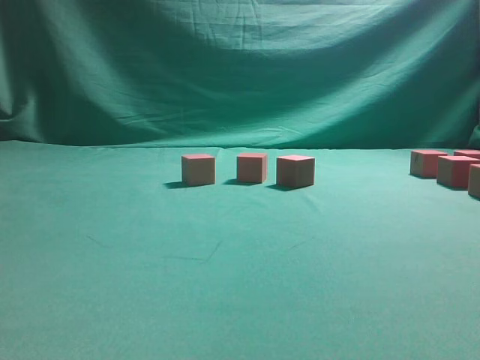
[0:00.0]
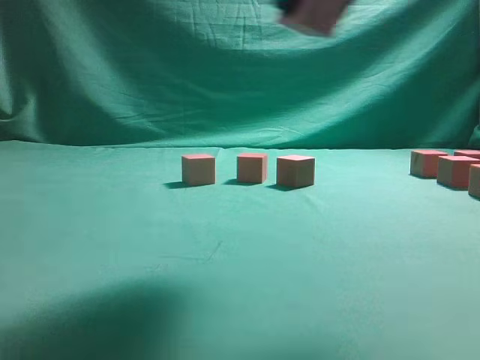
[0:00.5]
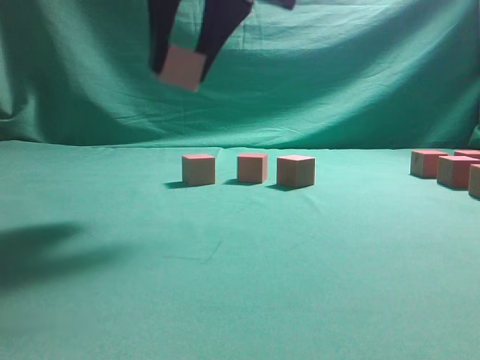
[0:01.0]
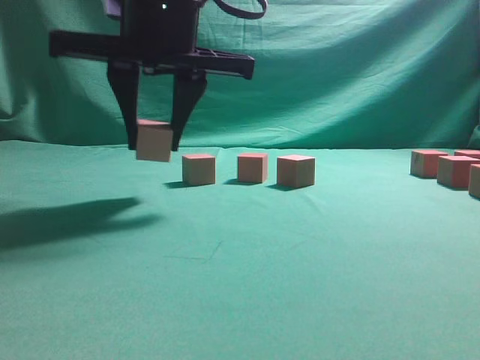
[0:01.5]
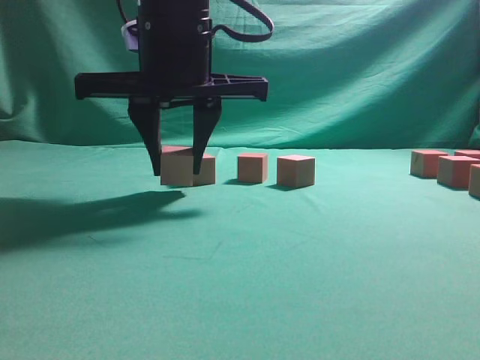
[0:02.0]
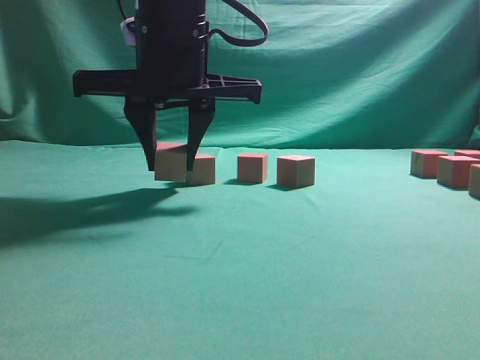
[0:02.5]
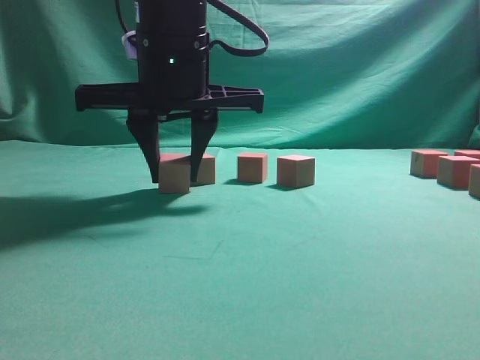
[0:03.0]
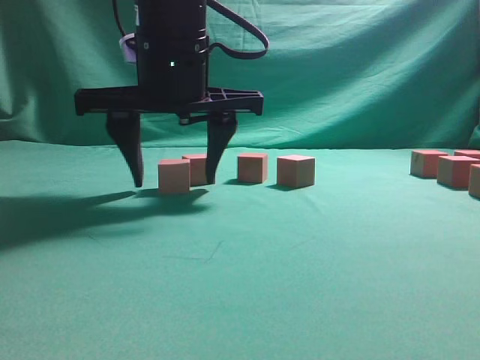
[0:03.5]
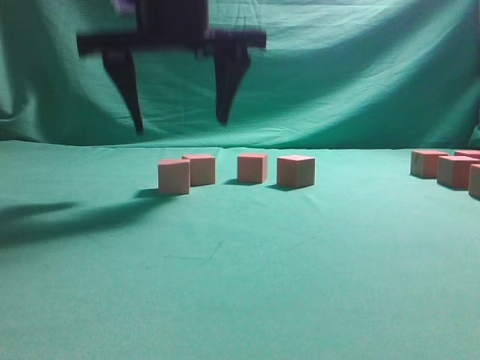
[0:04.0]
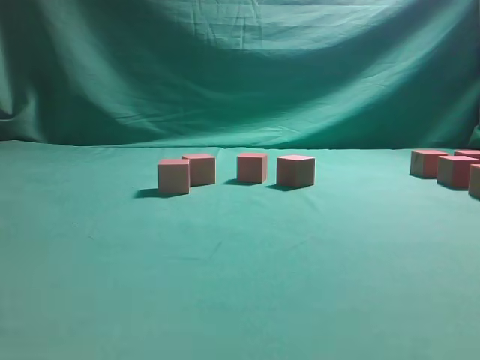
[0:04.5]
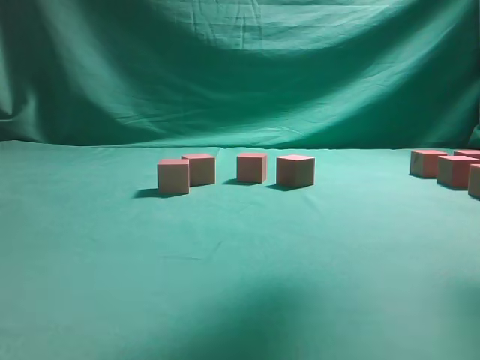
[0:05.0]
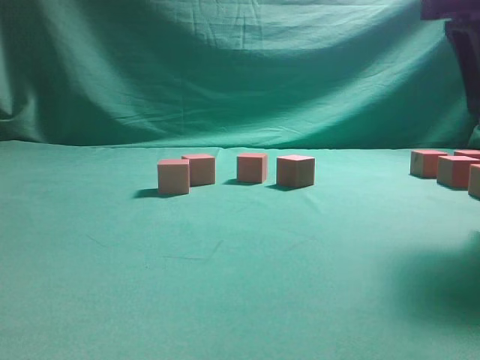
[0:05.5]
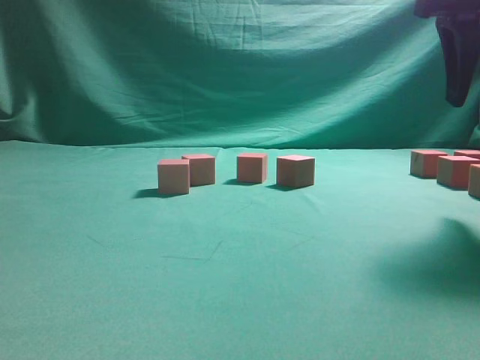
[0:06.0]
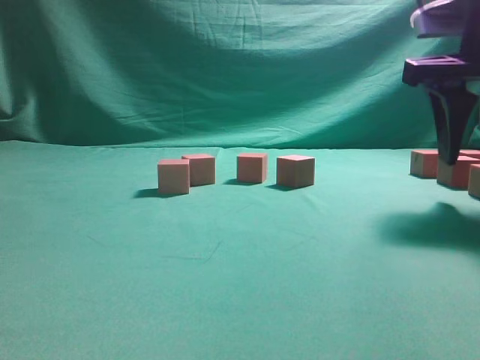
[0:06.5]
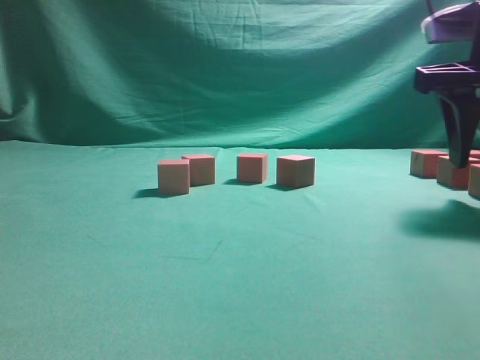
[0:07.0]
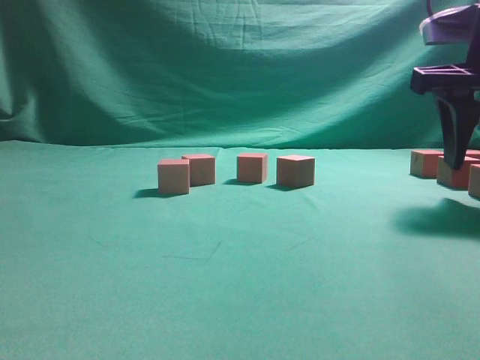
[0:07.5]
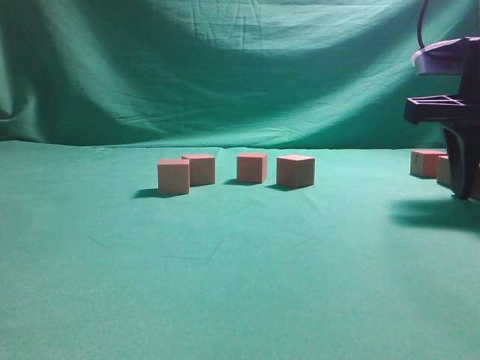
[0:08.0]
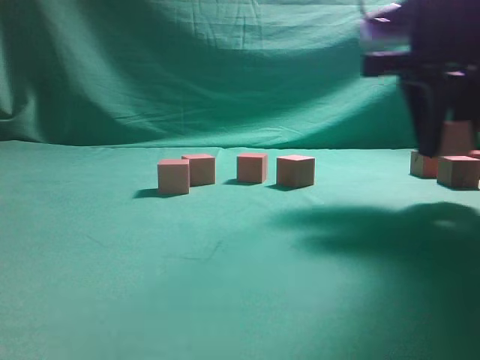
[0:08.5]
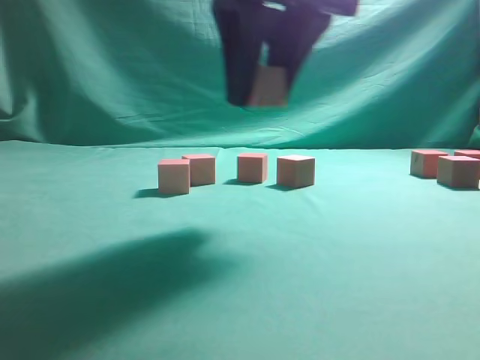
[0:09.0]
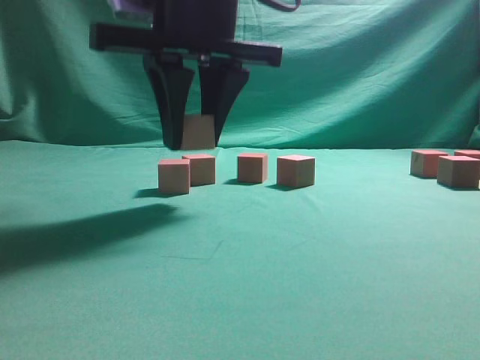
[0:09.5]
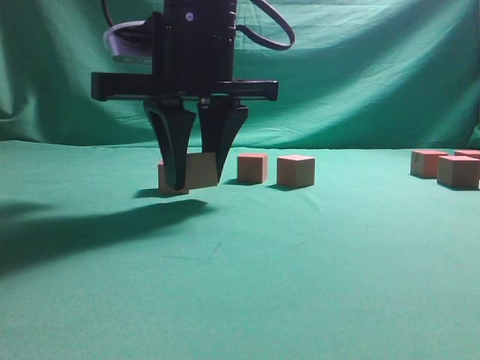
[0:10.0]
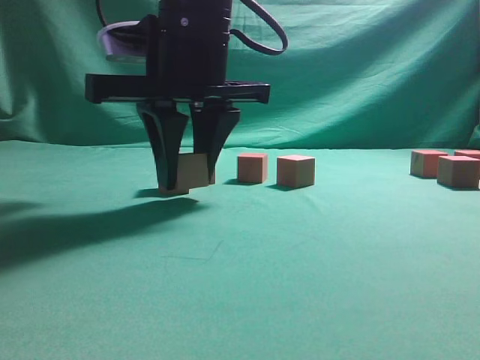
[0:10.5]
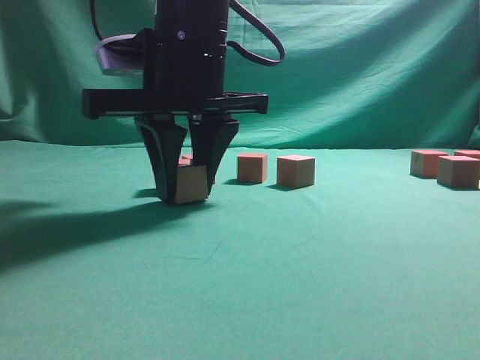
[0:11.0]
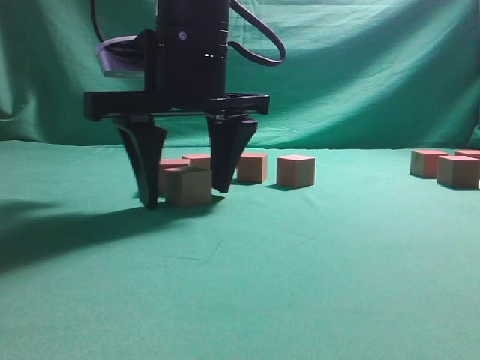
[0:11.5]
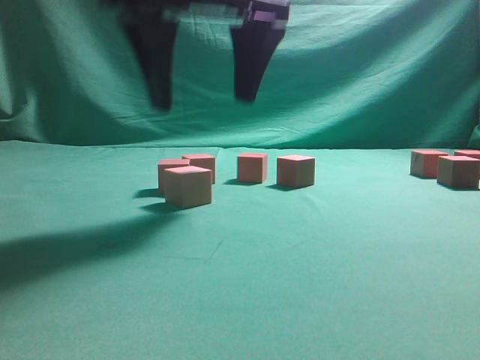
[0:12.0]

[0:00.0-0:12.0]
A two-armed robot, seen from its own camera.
Task of the whole recording: pick up the multiple cubes in two columns one by one and place them in another position on the table.
Step, 0:00.0 to 0:04.0: Place the block at the correct position to assemble the letter S.
Step, 0:04.5 to 0:08.0: Pick up the block on the table.
Step, 0:08.5 to 0:12.0: Place the block at the correct position to assemble the letter S.
0:00.0 to 0:02.0: The right gripper travels to the left by approximately 35 cm.
0:02.0 to 0:04.0: The right gripper opens.
0:04.0 to 0:06.0: The right gripper shifts about 25 cm to the right.
0:06.0 to 0:08.0: The right gripper moves downward, roughly 10 cm.
0:08.0 to 0:10.0: The right gripper shifts about 25 cm to the left.
0:10.0 to 0:12.0: The right gripper travels upward by roughly 5 cm, and opens.

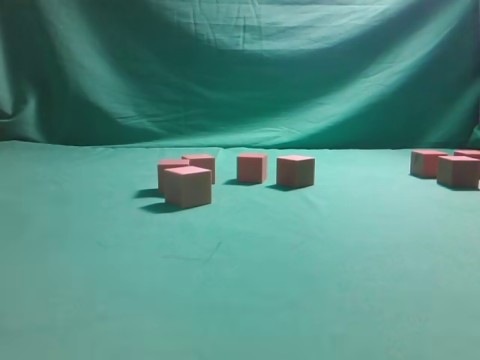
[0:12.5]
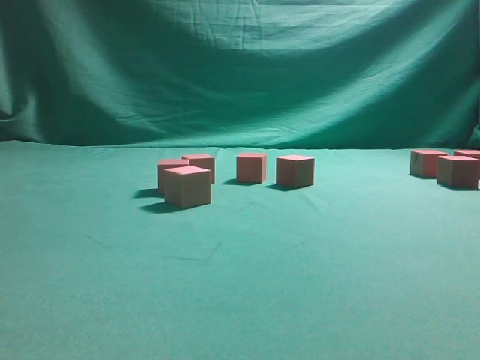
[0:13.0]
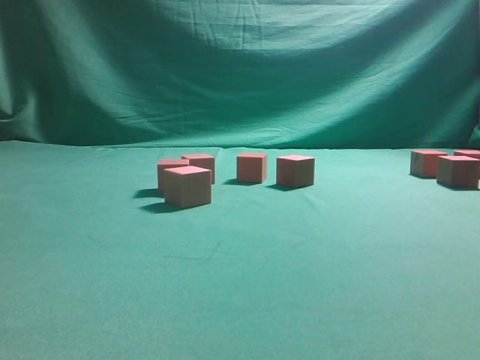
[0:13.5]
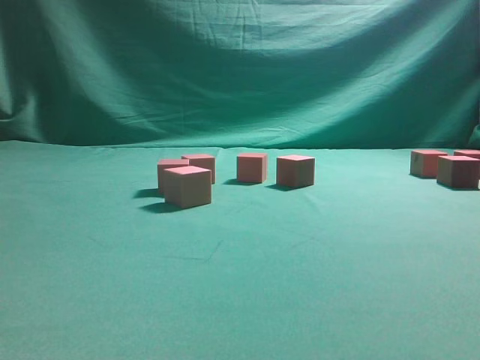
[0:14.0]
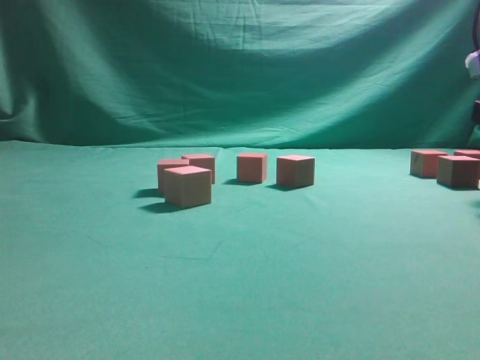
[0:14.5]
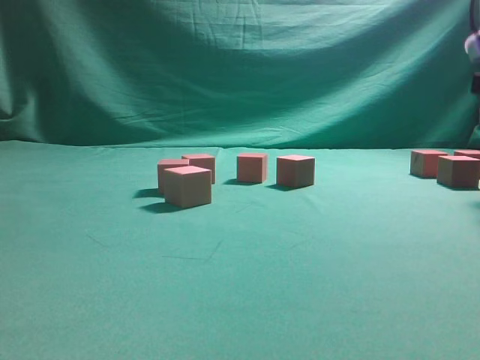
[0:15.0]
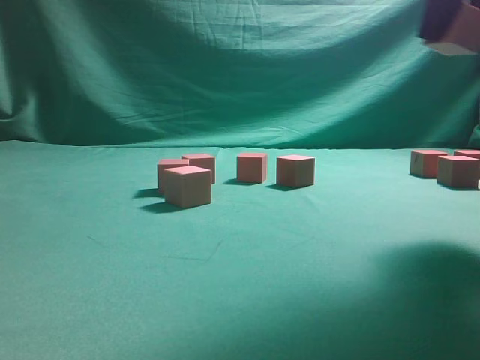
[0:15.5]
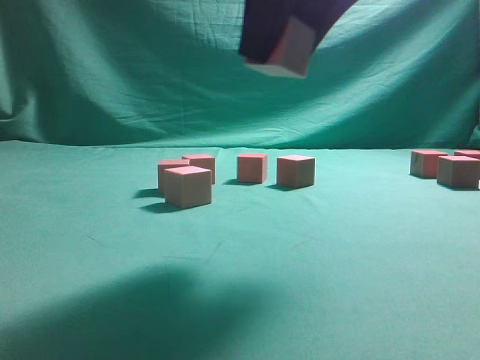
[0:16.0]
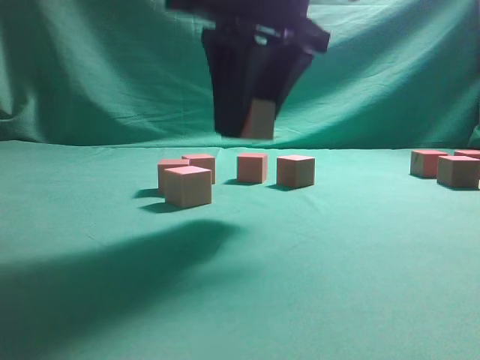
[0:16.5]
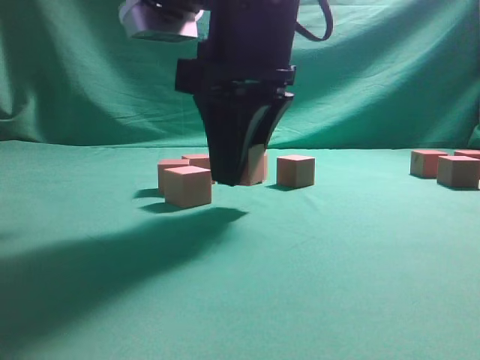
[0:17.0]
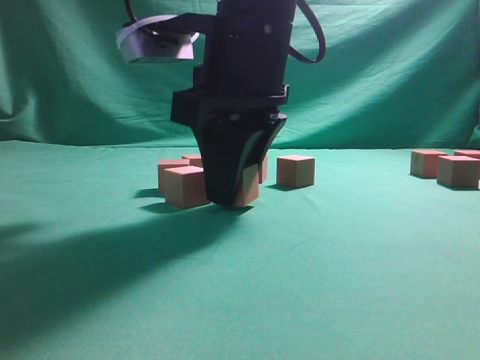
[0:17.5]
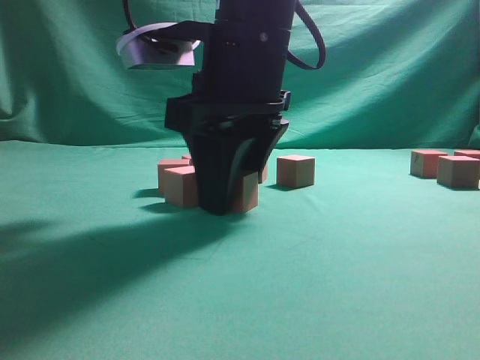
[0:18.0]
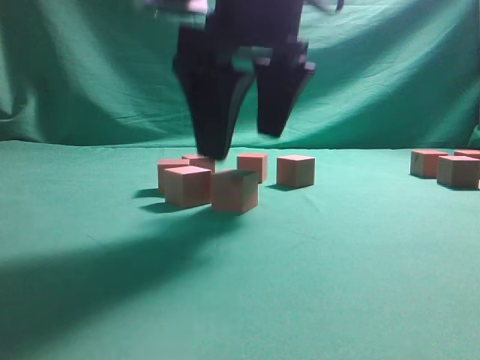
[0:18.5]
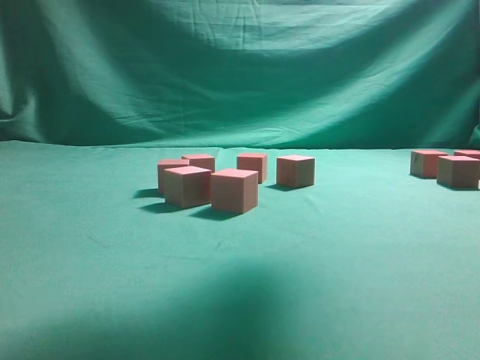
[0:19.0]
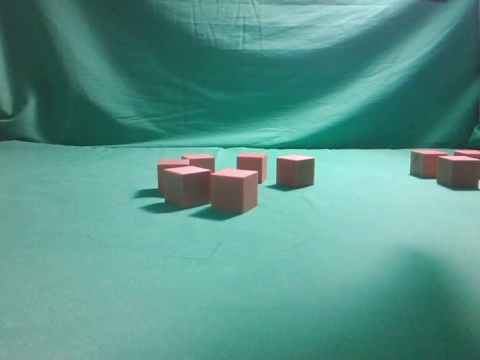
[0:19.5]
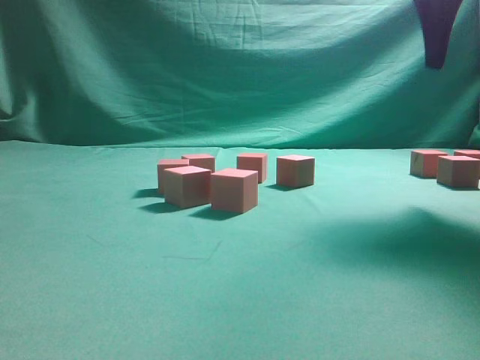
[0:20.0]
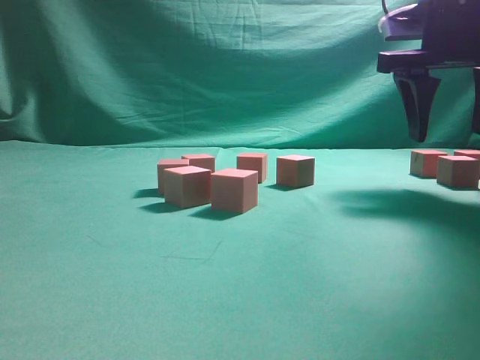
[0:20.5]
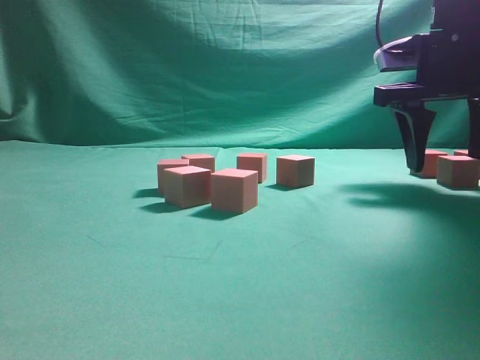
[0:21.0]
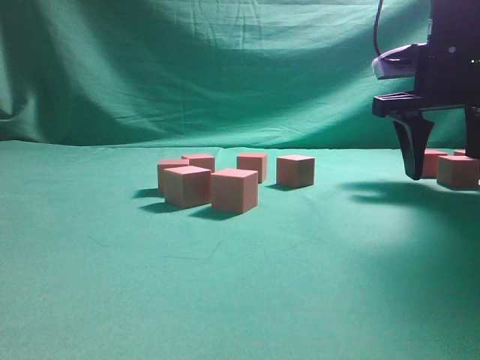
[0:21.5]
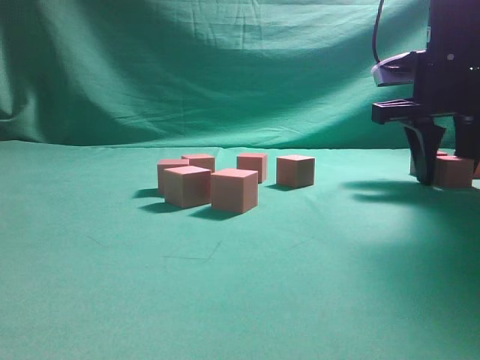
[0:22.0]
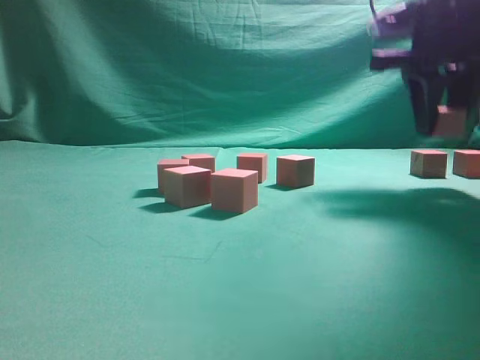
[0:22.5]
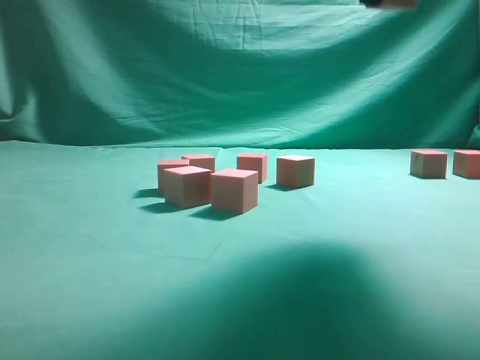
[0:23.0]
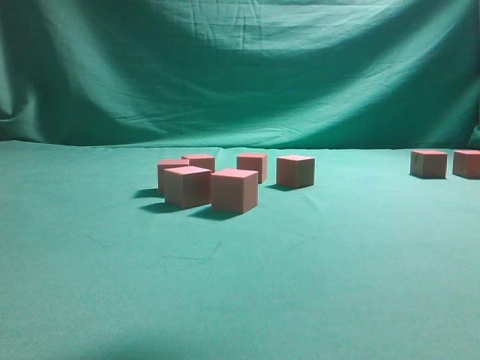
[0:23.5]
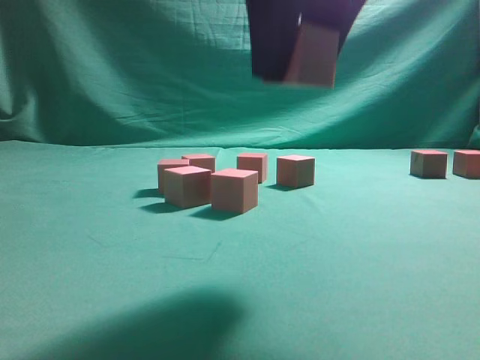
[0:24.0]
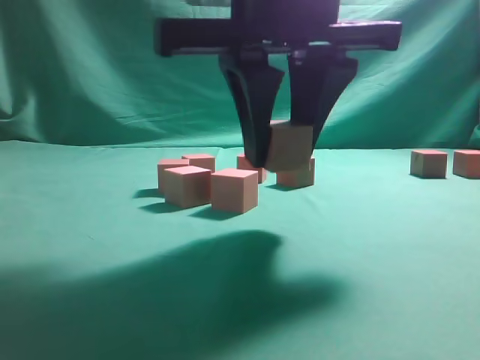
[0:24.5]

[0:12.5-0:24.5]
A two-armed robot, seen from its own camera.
Task of the whole recording: pick up the multiple cubes in two columns one by one and place them in another position on the table.
Step, 0:15.5 to 0:18.5: Place the block at the correct position to assemble the letter S.
Step, 0:19.0 to 0:22.0: Pick up the block on the table.
0:14.5 to 0:16.5: The right gripper travels to the left by roughly 25 cm.
0:16.5 to 0:18.5: The right gripper opens up.
0:18.5 to 0:20.5: The right gripper moves to the right and forward, some 20 cm.
0:20.5 to 0:22.5: The right gripper closes.
0:22.5 to 0:24.5: The right gripper heads to the left and backward, covering approximately 25 cm.

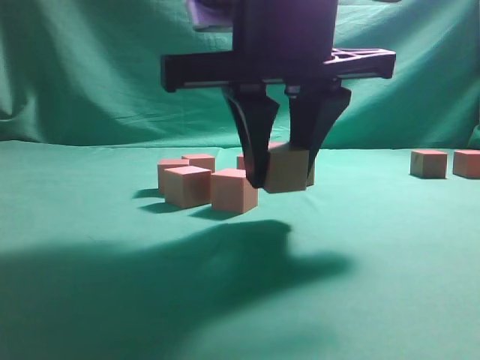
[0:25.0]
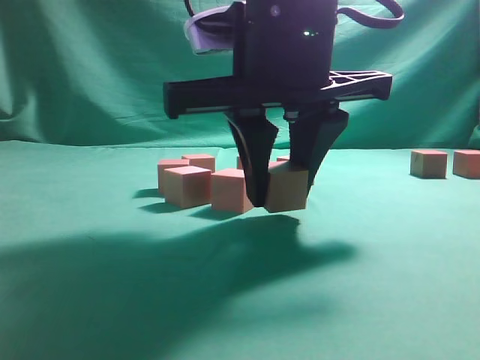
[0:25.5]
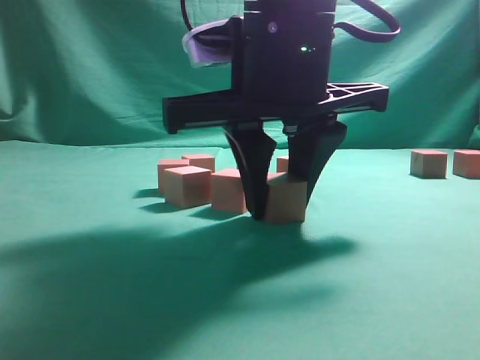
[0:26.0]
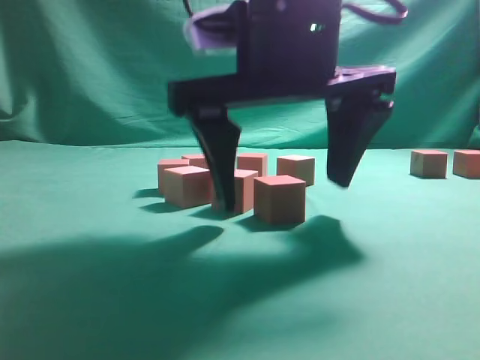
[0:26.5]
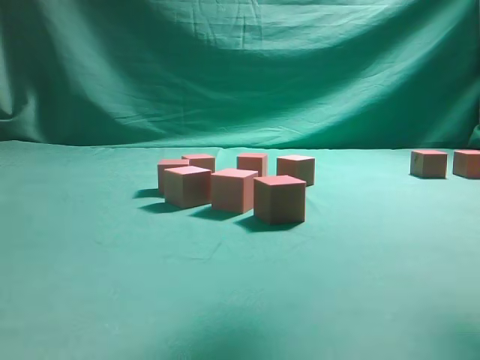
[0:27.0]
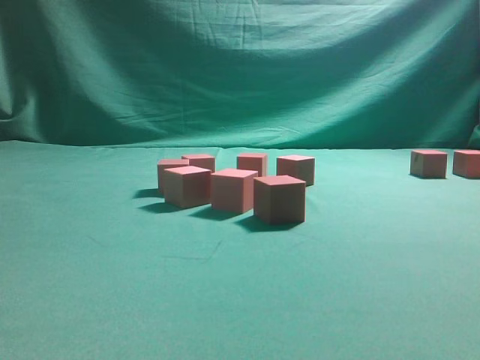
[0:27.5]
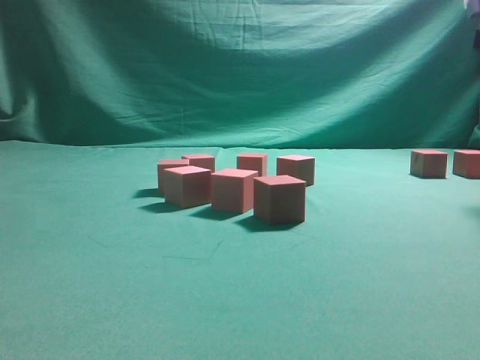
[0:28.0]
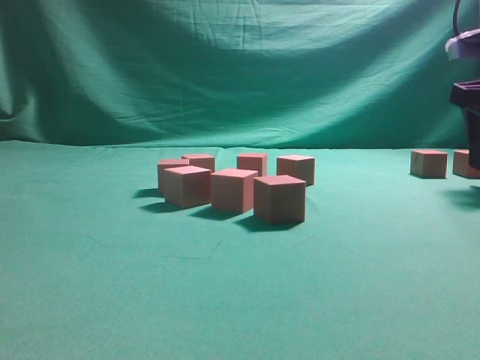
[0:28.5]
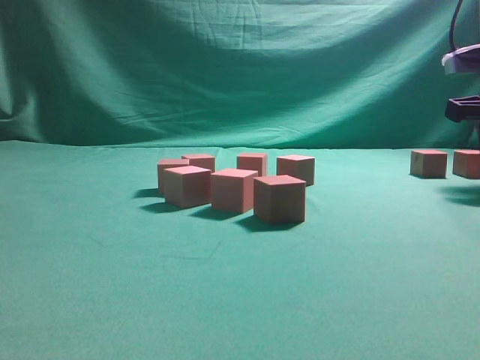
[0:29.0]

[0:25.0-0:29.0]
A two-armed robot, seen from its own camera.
Task of the whole recording: pick up the multiple cubes in two columns one by one and place them in another position on the table.
0:25.0 to 0:27.0: The right gripper heads upward and to the right, covering roughly 15 cm, and opens its fingers.
0:27.0 to 0:29.0: The right gripper is displaced to the right, forward and downward by some 30 cm, and closes its fingers.
